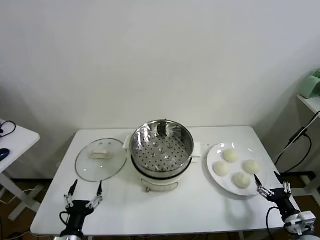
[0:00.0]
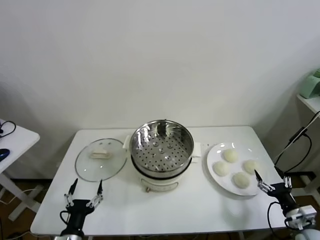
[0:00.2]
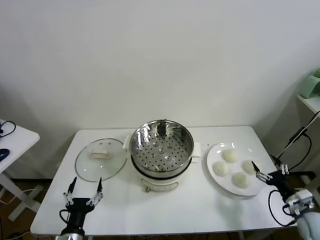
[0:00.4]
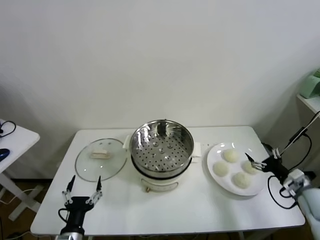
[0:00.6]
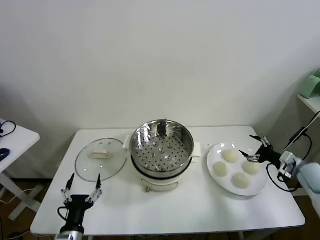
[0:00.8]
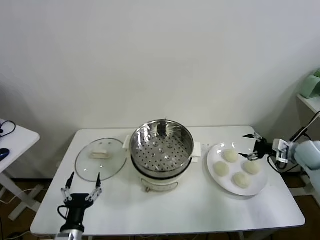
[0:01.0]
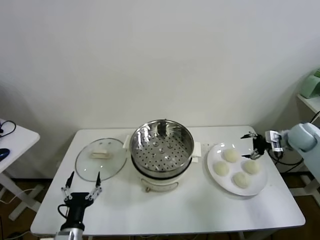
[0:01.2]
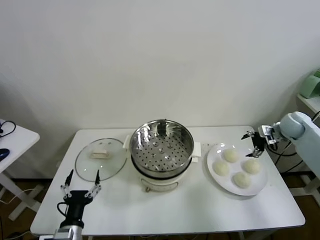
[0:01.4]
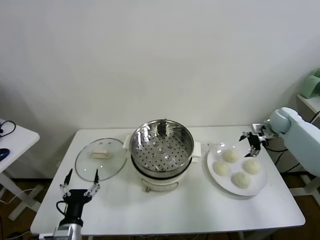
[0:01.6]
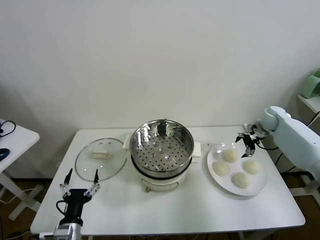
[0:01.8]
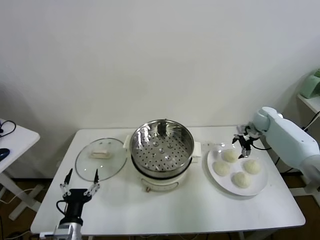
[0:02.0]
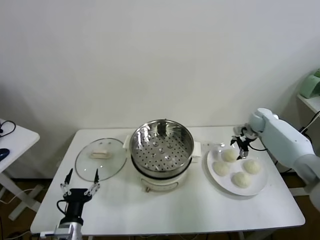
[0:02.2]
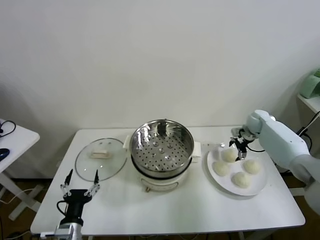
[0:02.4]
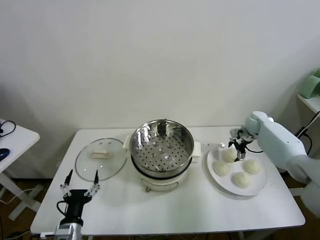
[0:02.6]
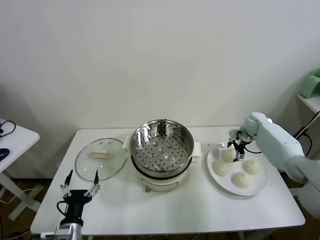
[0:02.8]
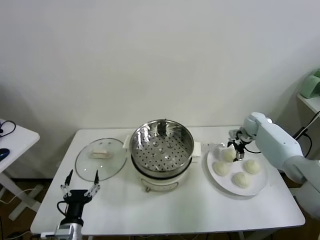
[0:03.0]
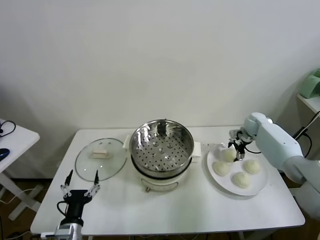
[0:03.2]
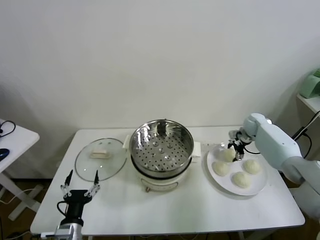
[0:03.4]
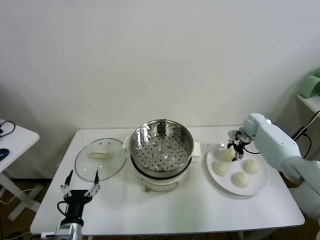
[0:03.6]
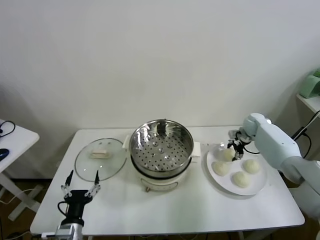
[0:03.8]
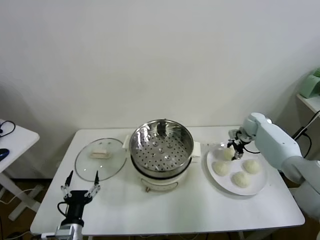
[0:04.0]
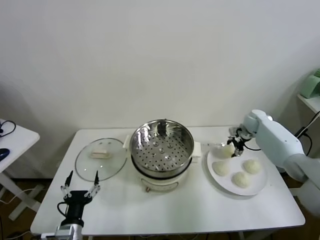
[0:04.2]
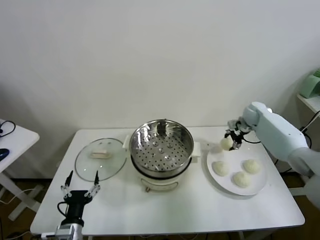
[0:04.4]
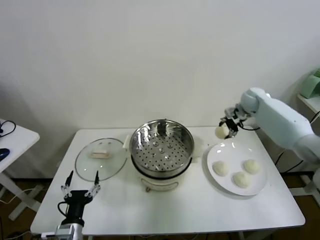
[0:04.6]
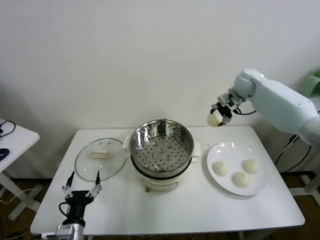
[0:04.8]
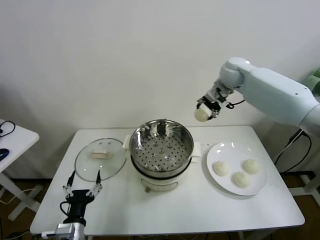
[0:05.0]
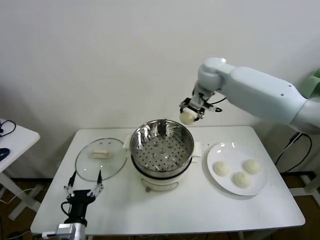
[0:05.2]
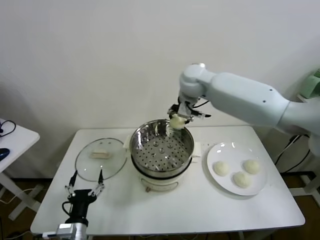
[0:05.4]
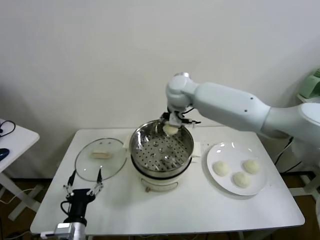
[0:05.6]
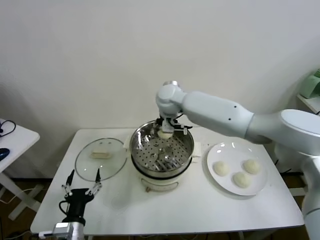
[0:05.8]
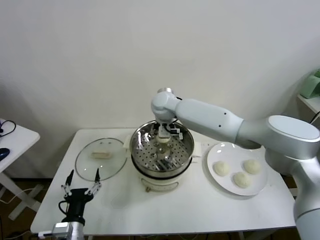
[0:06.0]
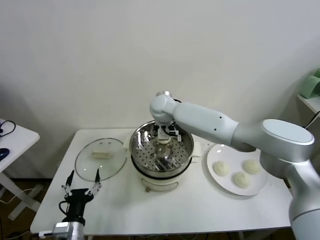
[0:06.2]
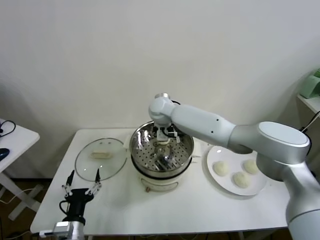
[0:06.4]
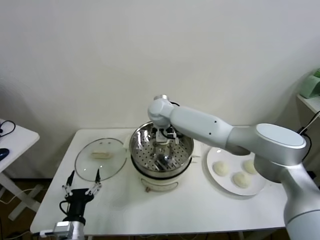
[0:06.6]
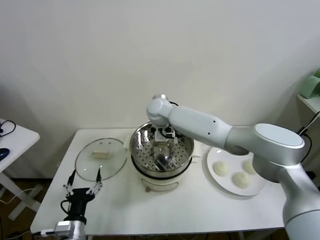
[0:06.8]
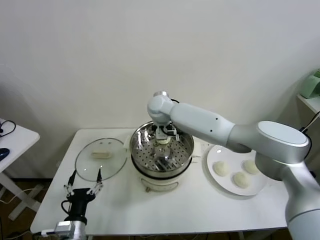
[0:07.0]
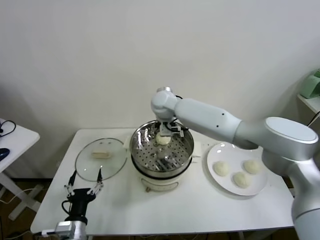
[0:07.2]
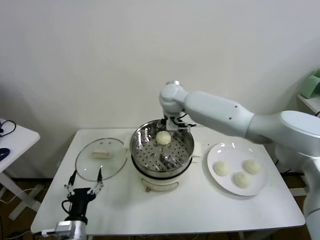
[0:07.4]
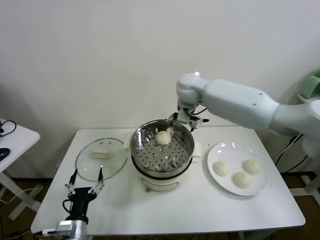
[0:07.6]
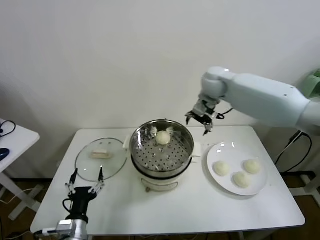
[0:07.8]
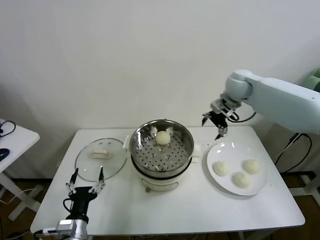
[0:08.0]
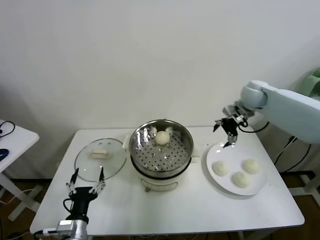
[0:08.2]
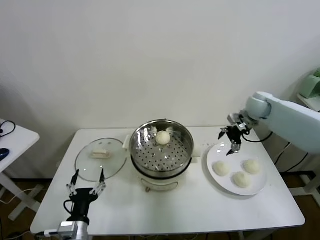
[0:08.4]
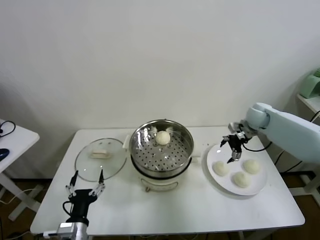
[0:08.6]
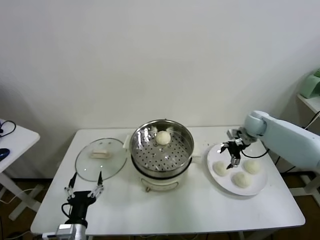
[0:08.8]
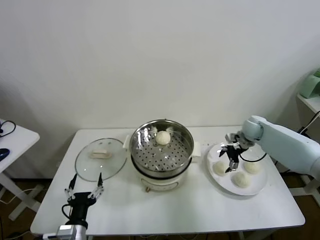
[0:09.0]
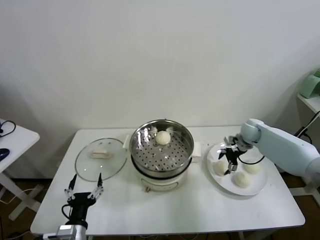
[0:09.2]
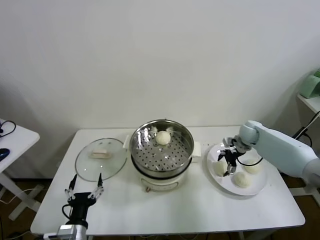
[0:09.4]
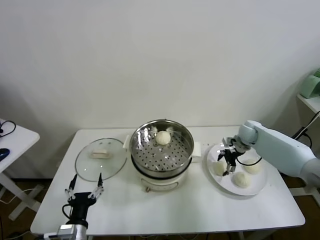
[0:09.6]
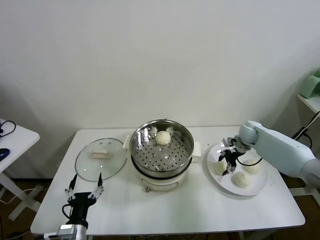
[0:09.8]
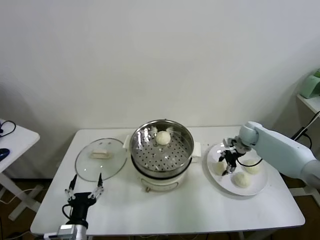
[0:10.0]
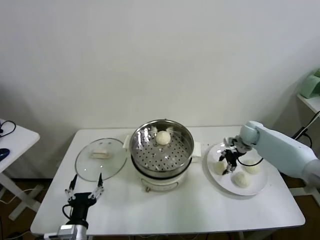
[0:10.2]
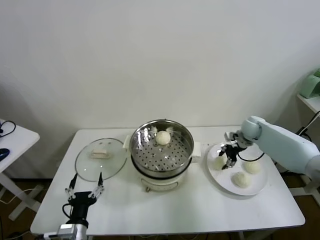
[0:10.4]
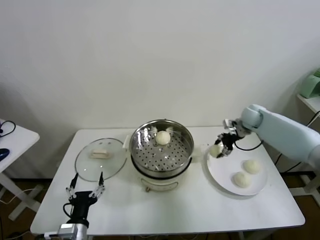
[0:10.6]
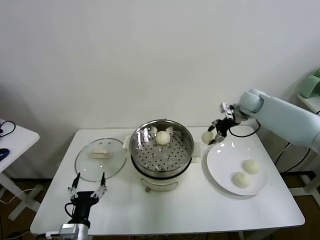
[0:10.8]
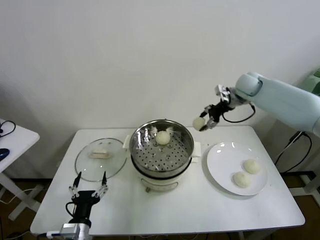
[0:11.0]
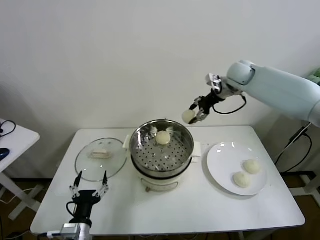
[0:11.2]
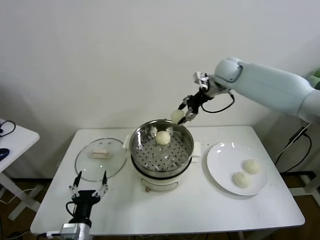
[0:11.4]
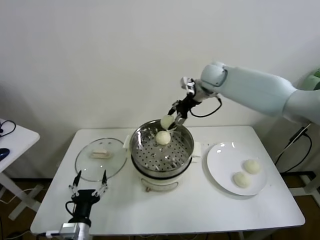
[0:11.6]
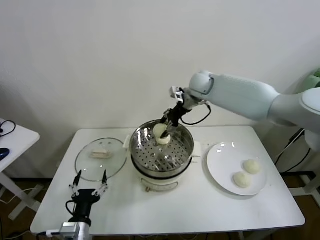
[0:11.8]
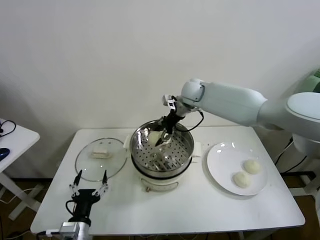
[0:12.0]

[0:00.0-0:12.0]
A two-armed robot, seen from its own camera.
Task of the whole recording: take steamed baozi put them in steamer.
Step, 0:00.0 to 0:03.8: Grasp the baozi in the plate with right gripper.
Step, 0:04.0 to 0:07.0: Place the baozi on the steamer with right gripper.
Step, 0:07.2 to 0:09.8: Grasp the baozi in the plate with right gripper.
0:01.6 to 0:03.0: The right gripper moves downward, some 5 cm.
0:03.0 to 0:04.4: The right gripper heads upward, covering roughly 10 cm, and closes up.
0:04.4 to 0:06.0: The right gripper goes roughly 35 cm to the left.
0:06.0 to 0:07.6: The right gripper goes about 15 cm to the right and upward, and opens.
0:07.6 to 0:09.0: The right gripper shifts roughly 30 cm to the right and downward.
0:09.0 to 0:10.4: The right gripper closes.
0:10.4 to 0:12.0: The right gripper goes roughly 30 cm to the left and upward.

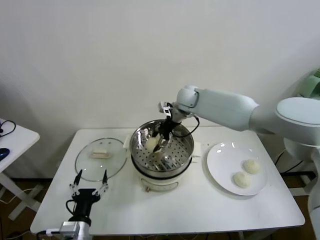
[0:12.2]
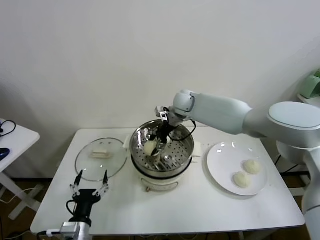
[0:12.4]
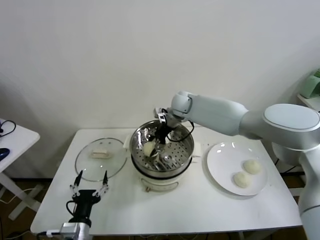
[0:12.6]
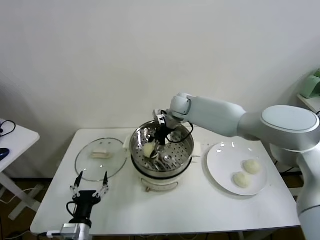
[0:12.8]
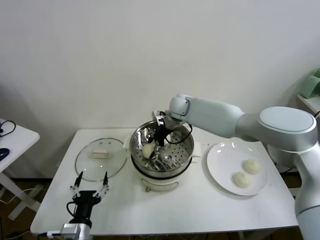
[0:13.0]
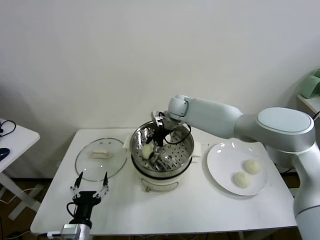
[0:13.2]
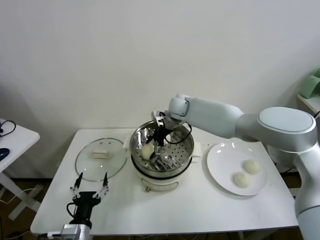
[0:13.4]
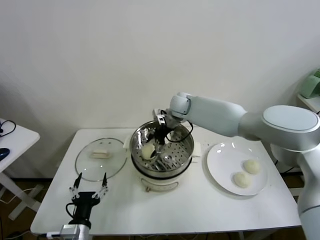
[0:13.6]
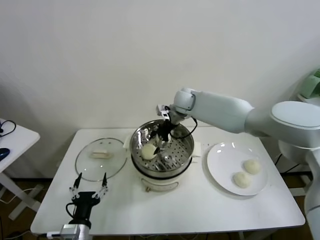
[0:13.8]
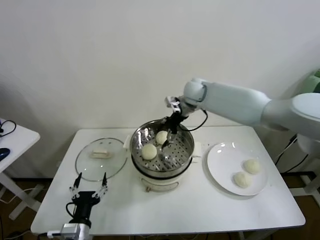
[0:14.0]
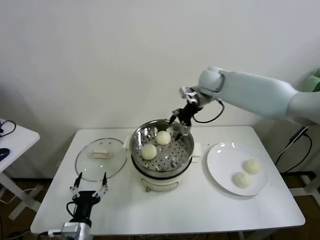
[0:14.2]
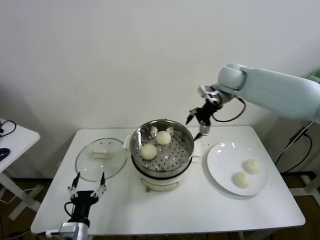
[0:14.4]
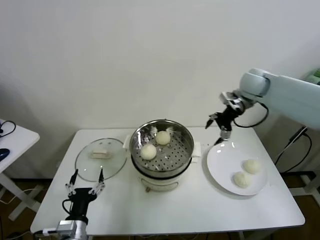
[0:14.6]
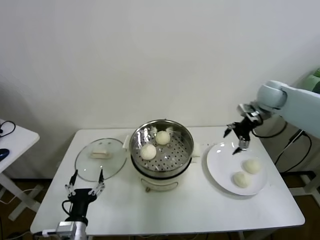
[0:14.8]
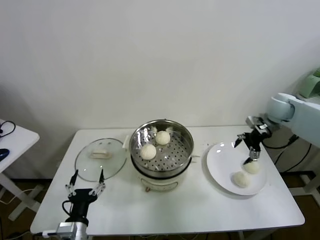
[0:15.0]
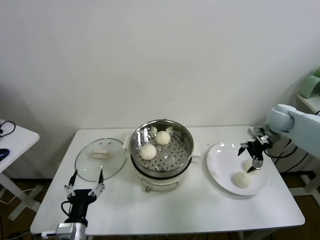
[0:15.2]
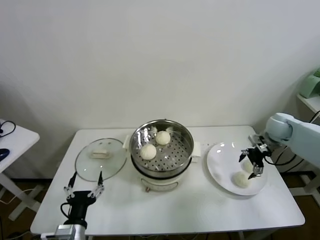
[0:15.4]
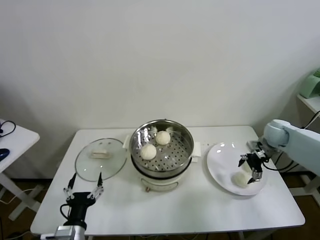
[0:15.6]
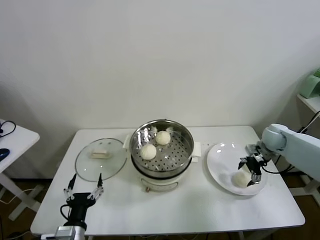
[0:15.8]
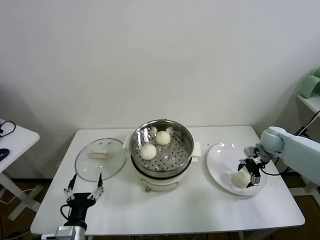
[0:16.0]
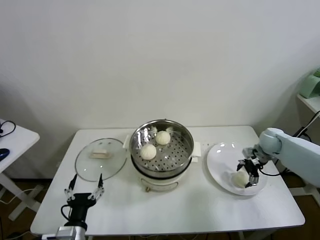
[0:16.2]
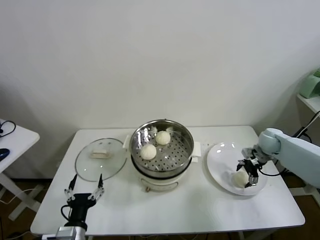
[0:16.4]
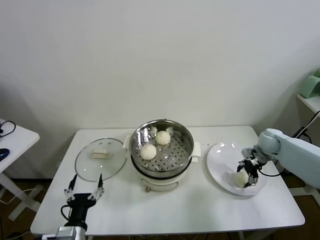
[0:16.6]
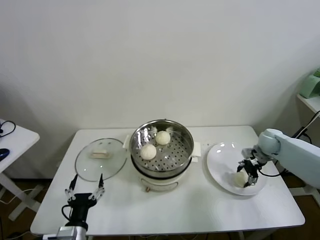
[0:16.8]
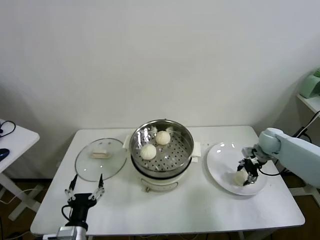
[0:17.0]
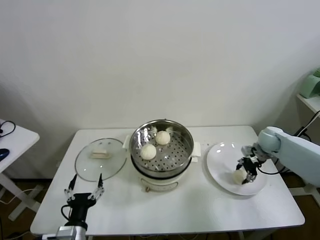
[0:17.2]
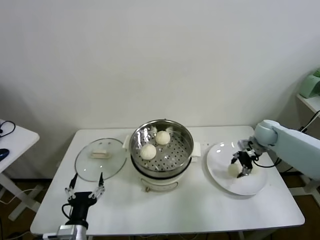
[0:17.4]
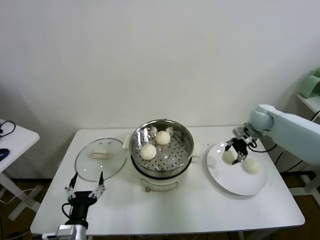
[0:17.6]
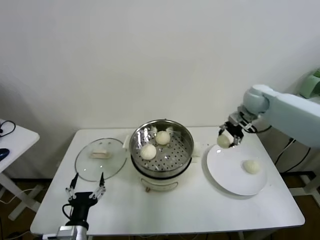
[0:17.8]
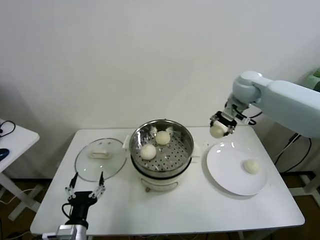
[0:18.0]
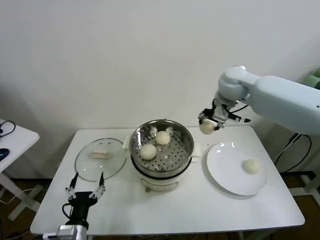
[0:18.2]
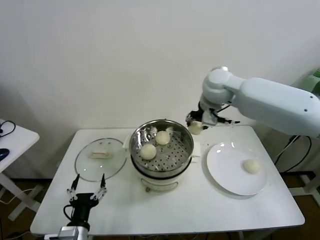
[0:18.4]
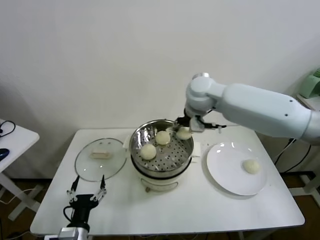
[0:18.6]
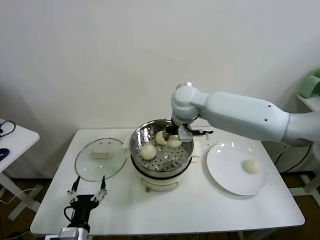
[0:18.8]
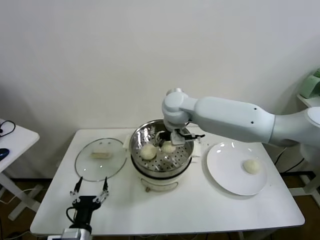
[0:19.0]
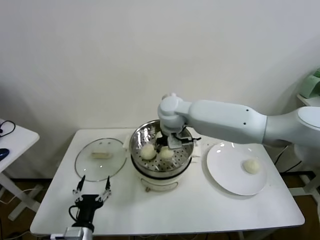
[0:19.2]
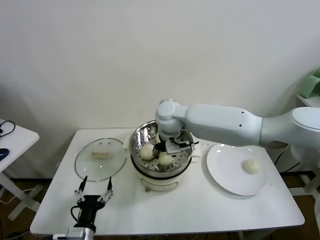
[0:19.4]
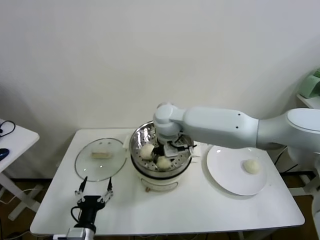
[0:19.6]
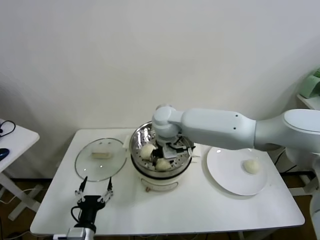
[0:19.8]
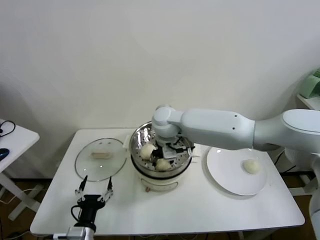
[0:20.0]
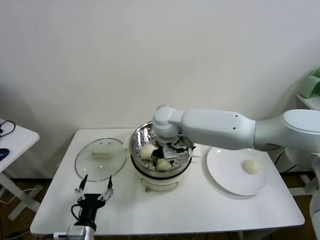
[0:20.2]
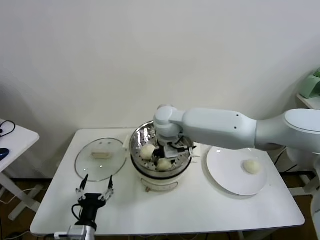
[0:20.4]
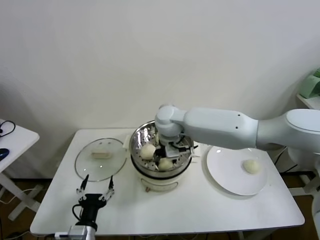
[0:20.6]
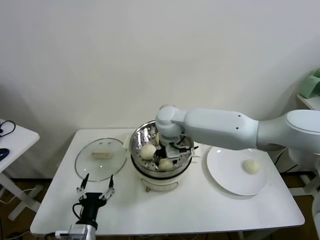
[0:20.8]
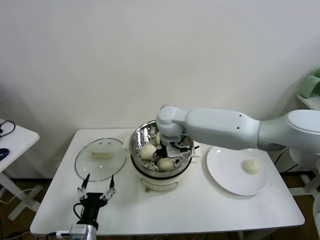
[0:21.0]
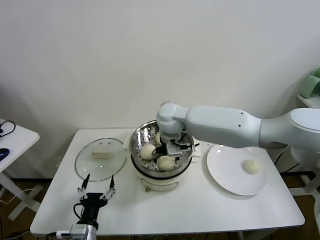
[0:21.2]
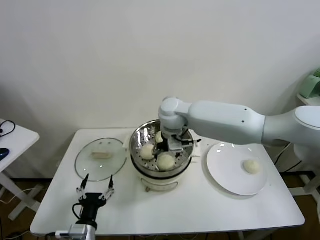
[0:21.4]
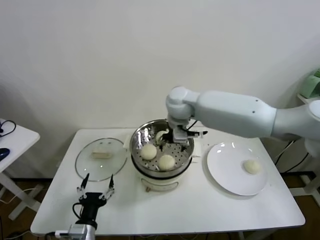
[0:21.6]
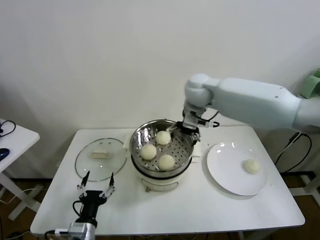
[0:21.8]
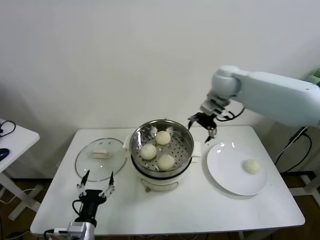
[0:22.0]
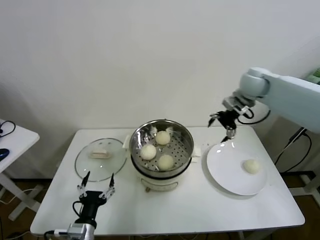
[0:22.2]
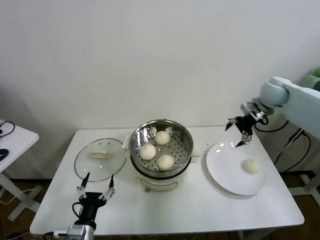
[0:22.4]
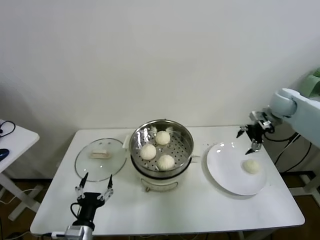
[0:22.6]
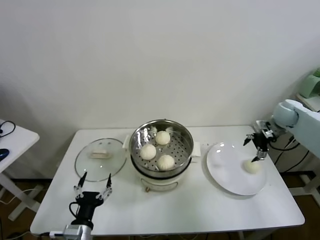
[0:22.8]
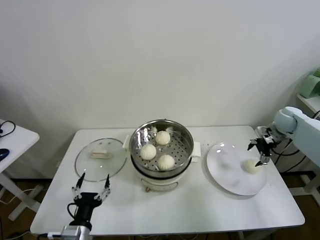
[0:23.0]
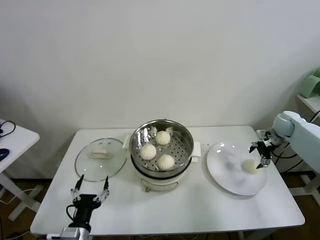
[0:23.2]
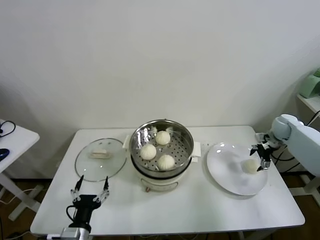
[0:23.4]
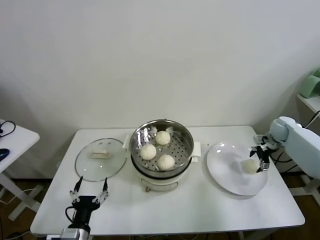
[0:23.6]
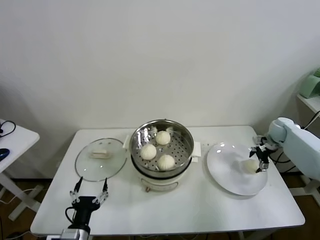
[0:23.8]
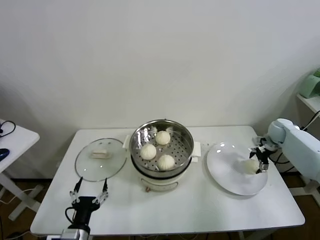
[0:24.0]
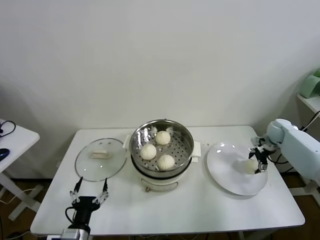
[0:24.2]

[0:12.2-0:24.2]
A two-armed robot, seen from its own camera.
Task of the whole recording: take steamed baozi put them in steamer.
Step, 0:13.8 to 0:16.8: Grasp the baozi in the plate with right gripper.
Step, 0:17.0 to 0:21.2: Place the baozi on the steamer with right gripper.
0:12.2 to 0:13.8: The right gripper opens its fingers.
0:13.8 to 0:15.2: The right gripper is displaced to the right by approximately 35 cm.
0:15.2 to 0:16.6: The right gripper goes approximately 10 cm downward, and closes up.
0:16.6 to 0:18.2: The right gripper is displaced upward and to the left by approximately 35 cm, and closes.
0:18.2 to 0:19.8: The right gripper travels to the left and downward by about 25 cm.
0:19.8 to 0:21.2: The right gripper opens its fingers.
0:21.2 to 0:22.6: The right gripper goes roughly 40 cm to the right.
0:22.6 to 0:24.2: The right gripper heads downward, covering roughly 15 cm.
